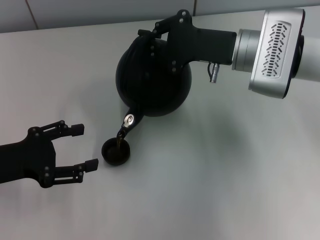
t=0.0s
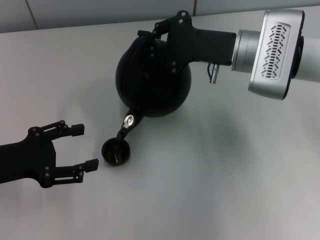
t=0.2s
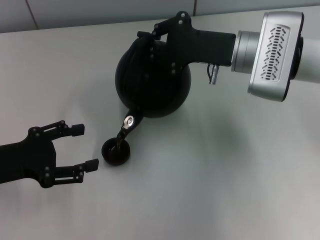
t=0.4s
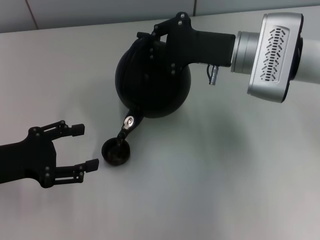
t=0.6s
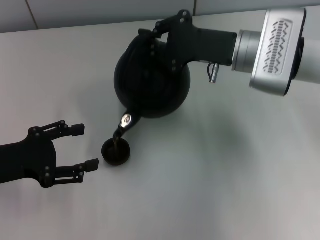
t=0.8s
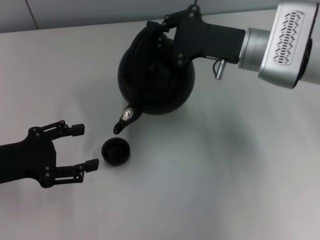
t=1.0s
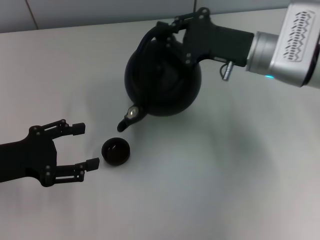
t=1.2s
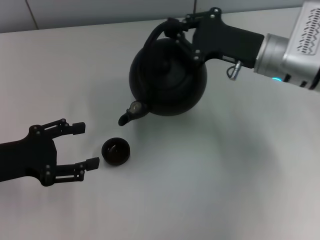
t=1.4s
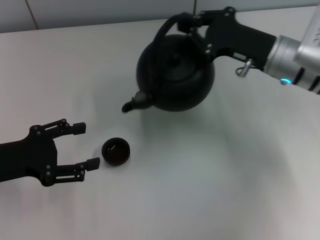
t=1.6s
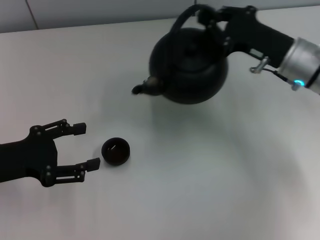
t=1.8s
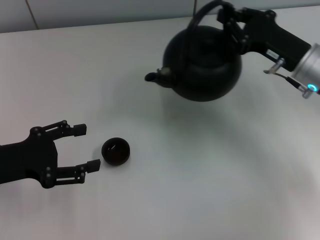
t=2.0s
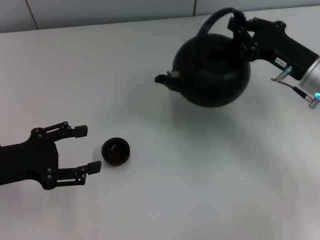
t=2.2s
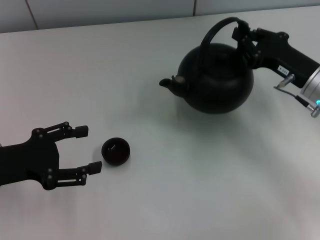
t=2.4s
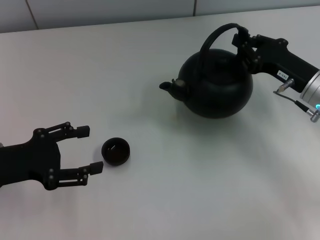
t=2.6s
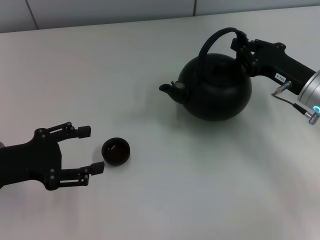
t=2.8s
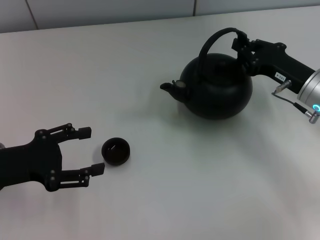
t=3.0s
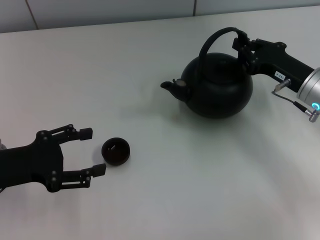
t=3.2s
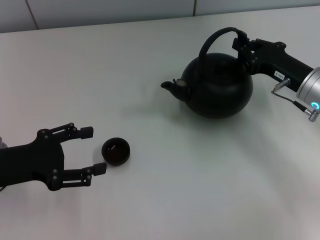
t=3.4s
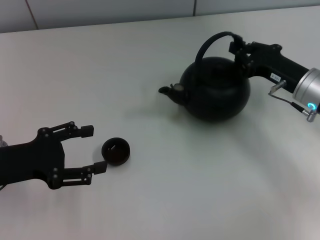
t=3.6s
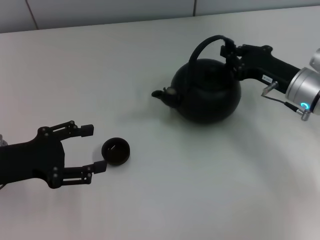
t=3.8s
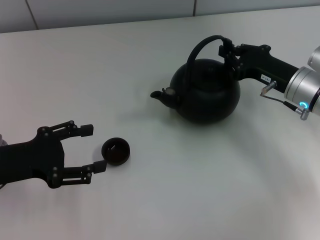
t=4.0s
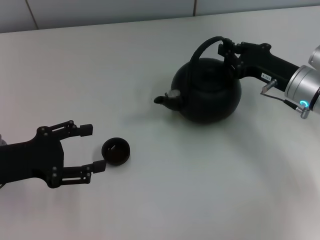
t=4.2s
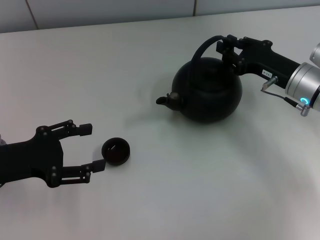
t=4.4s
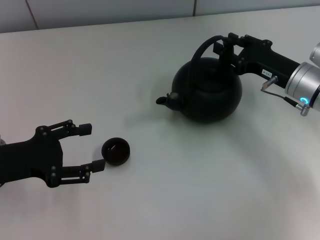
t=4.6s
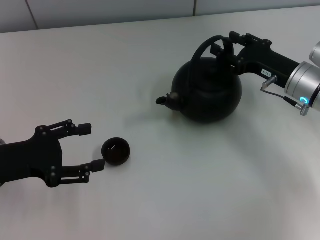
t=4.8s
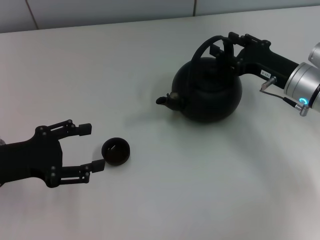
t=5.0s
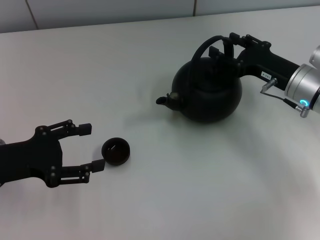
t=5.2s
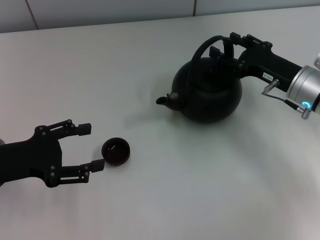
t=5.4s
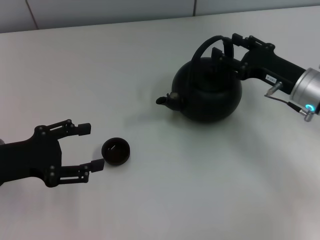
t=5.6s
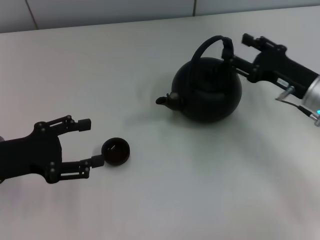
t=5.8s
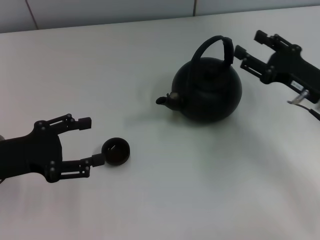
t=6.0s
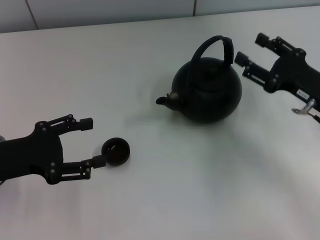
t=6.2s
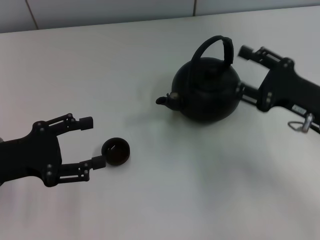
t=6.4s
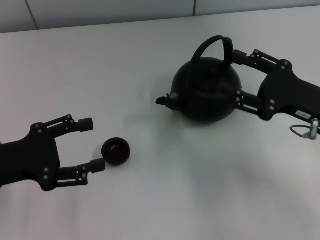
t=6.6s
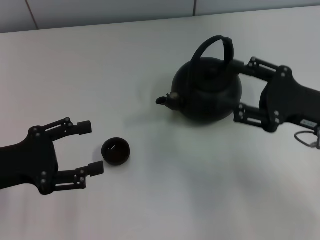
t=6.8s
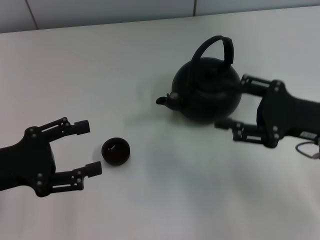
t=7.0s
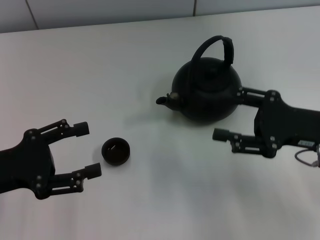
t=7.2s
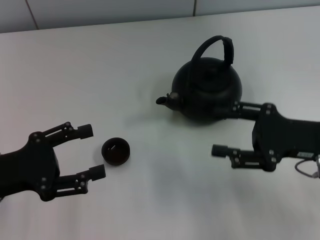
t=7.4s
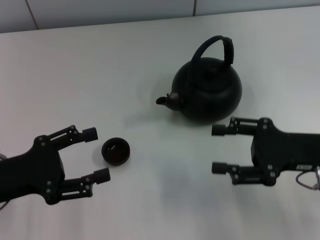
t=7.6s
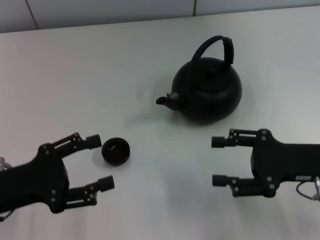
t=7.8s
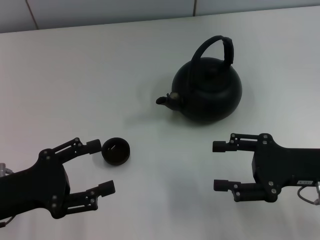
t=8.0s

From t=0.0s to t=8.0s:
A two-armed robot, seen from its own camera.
Task of the whole recording: Grasp the handle of the teapot with one hand and pour tea into the teacup.
Step, from t=1.8s to t=5.6s: Put down the teapot with the right gripper.
From t=0.0s to t=1.6s: The right gripper ends up roughly 5 cm from where it was.
From t=1.6s to t=3.2s: The right gripper shifts approximately 5 cm to the right.
From t=3.2s to t=4.8s: The right gripper opens up.
From t=4.8s to t=6.4s: The right gripper moves backward, about 10 cm.

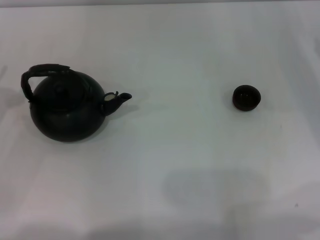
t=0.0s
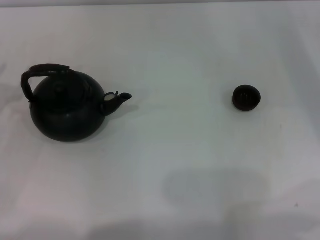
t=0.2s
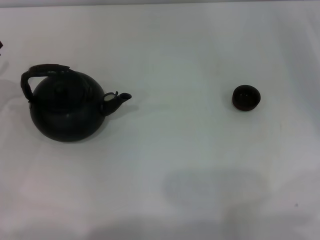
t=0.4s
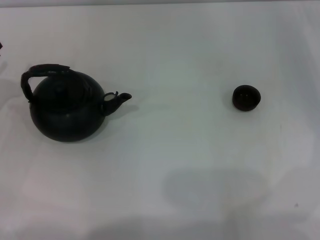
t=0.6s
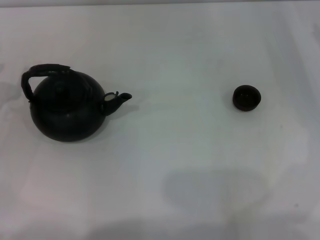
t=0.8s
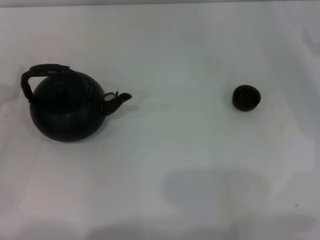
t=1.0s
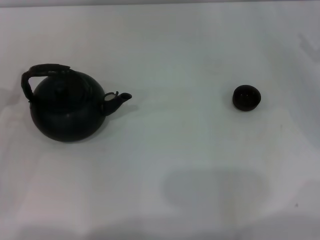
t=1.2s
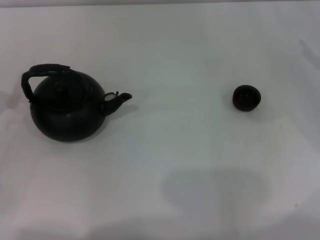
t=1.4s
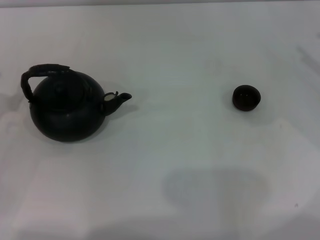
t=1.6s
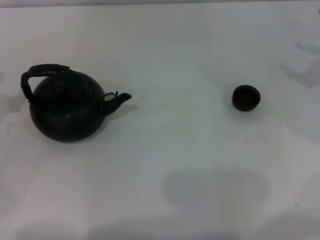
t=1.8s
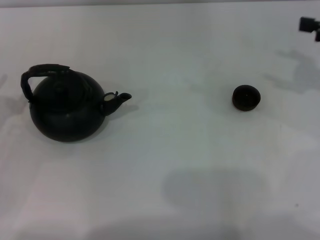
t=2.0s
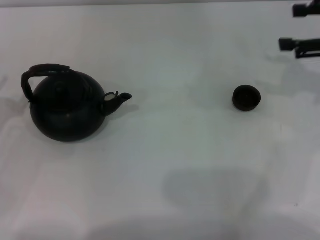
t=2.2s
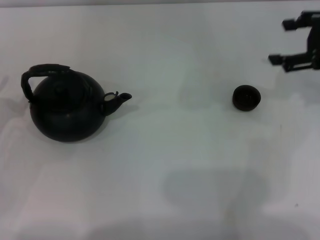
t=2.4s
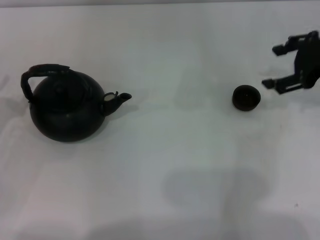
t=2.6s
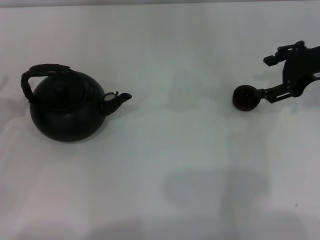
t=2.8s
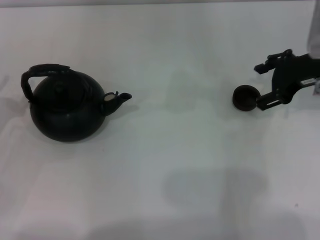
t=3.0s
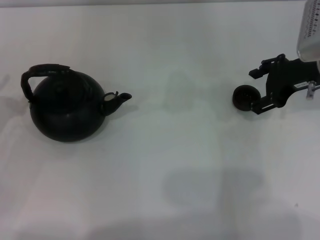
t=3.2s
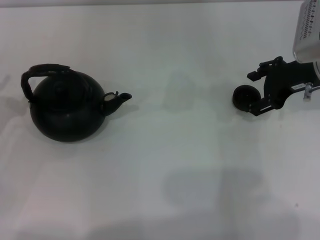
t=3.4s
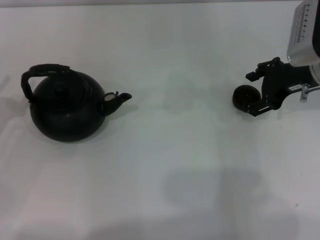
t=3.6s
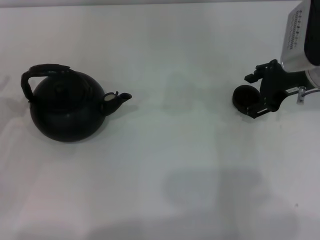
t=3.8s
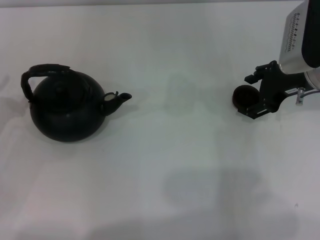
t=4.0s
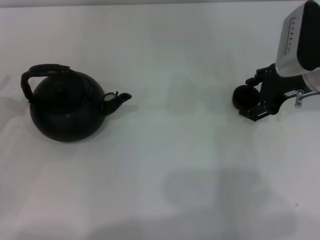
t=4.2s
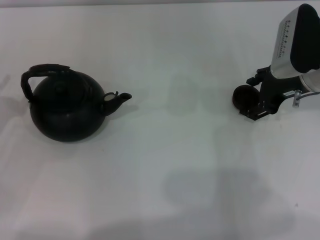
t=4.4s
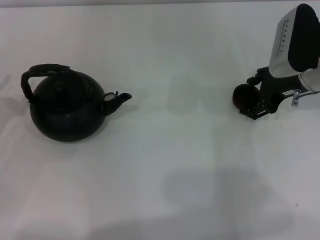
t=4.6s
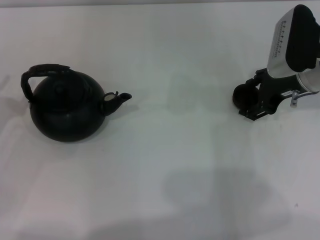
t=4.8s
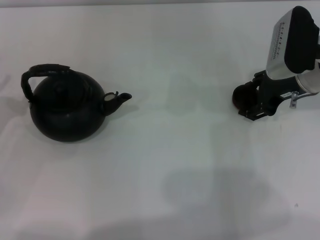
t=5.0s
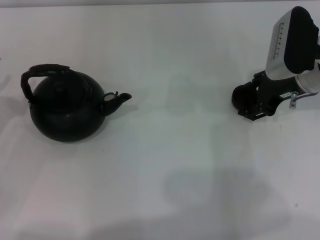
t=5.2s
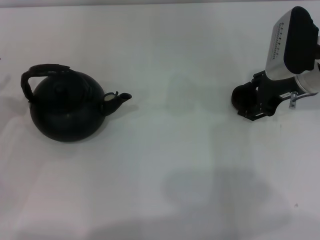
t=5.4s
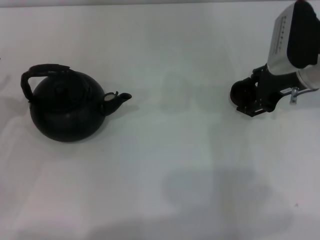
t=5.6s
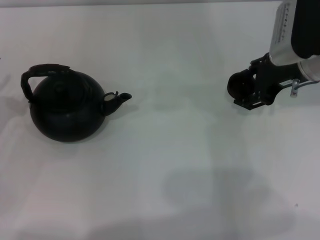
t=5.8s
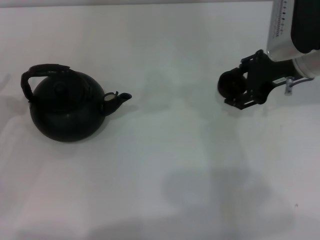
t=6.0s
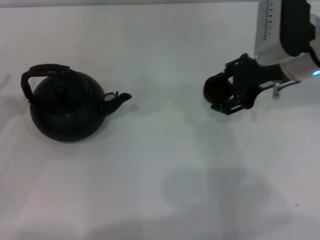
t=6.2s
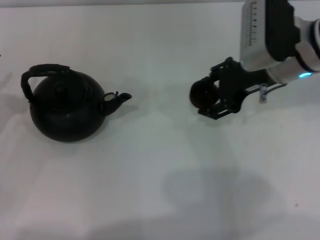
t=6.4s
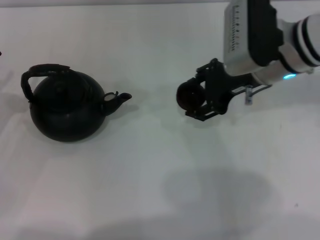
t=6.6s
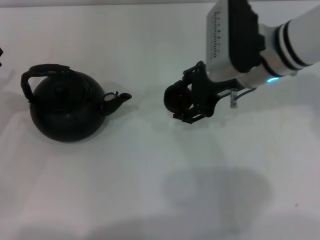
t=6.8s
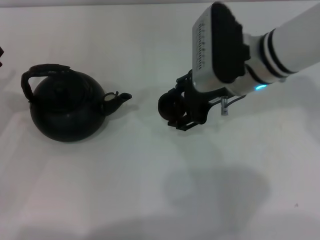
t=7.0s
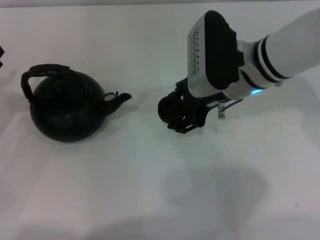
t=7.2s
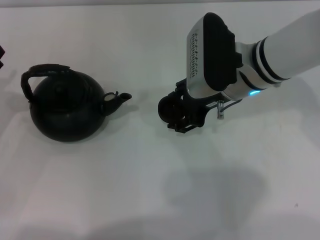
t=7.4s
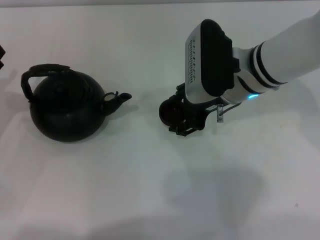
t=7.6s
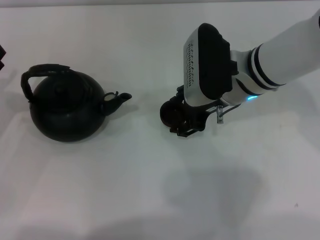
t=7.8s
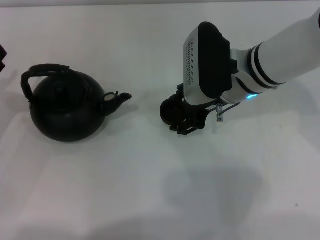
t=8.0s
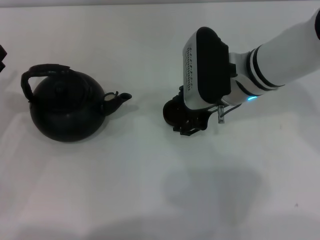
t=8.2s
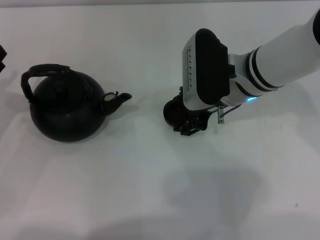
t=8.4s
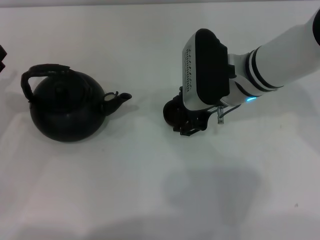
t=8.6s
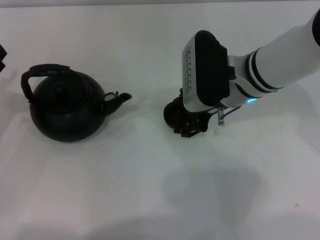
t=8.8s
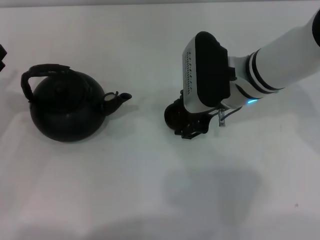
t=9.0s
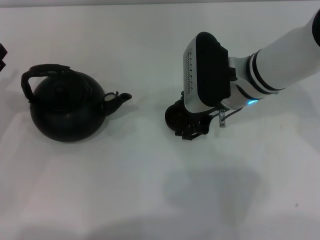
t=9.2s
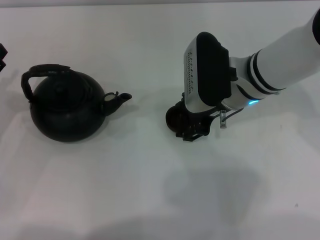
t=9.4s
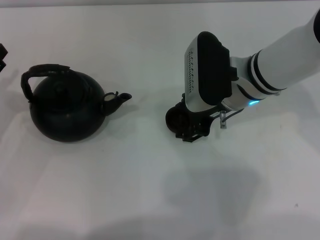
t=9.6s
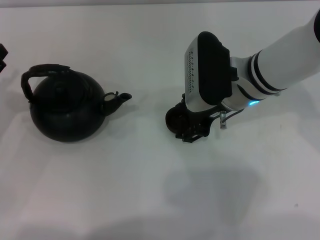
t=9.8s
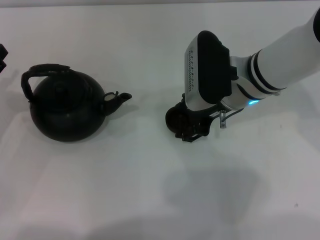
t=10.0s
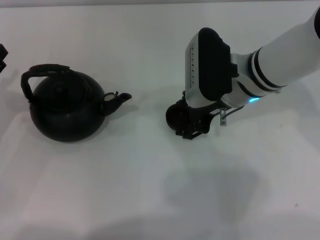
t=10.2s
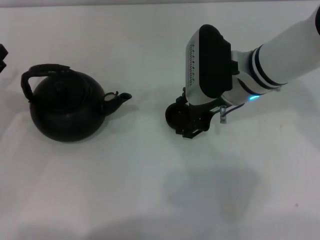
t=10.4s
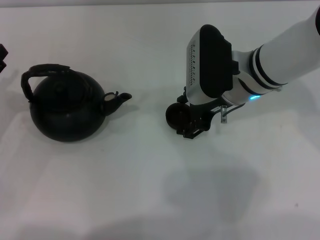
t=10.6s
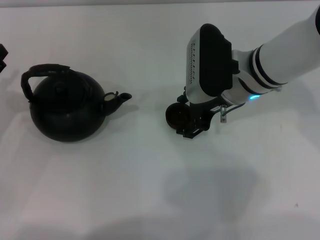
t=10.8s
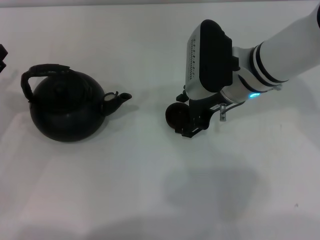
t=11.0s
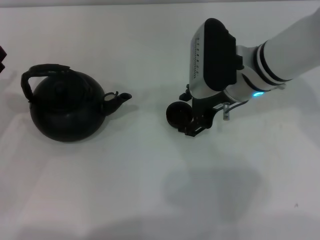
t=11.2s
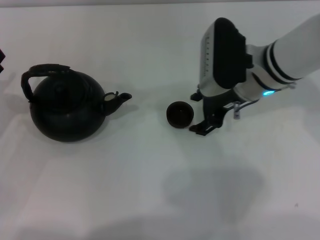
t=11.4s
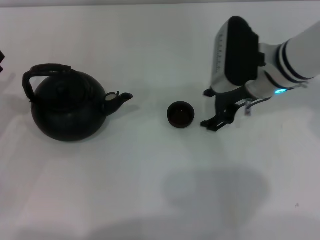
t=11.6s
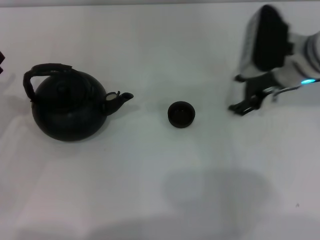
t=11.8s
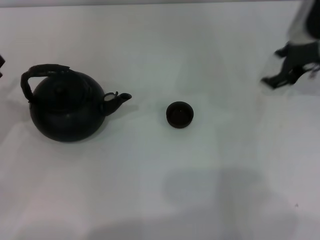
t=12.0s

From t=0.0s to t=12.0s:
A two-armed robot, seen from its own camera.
Task of the whole recording: Grasp the handle of the teapot with one hand and pour tea into the teacup.
Step, from t=0.0s to t=5.6s: Pick up the teacup with the right gripper.
Step, from t=6.0s to t=11.4s: Place the teacup in the center of view with the right gripper.
From t=1.6s to t=3.0s: The right gripper shifts some 15 cm to the left, and opens.
From t=3.0s to t=4.4s: There are only small adjustments of the grippers.
From t=4.4s to t=6.0s: The right gripper closes up.
From t=6.0s to t=7.6s: The right gripper is displaced to the left by about 10 cm.
From t=7.6s to t=10.4s: Both grippers stay about where they are.
From t=10.4s to t=12.0s: The right gripper is displaced to the right by approximately 15 cm, and opens.

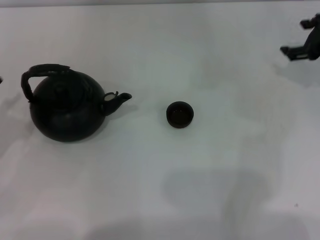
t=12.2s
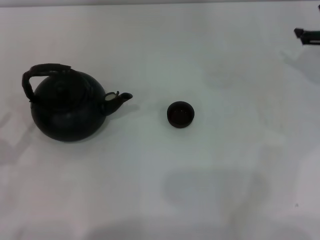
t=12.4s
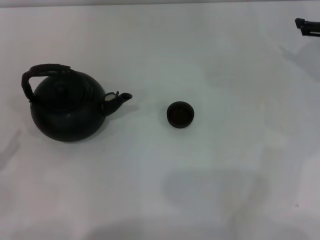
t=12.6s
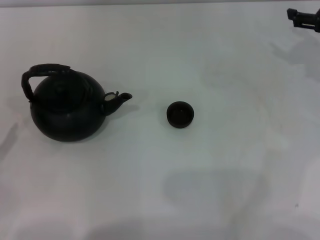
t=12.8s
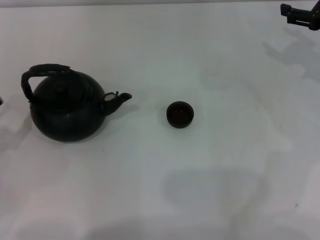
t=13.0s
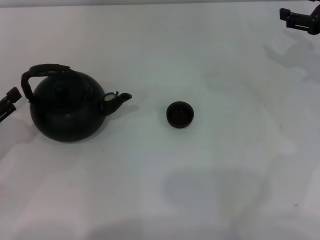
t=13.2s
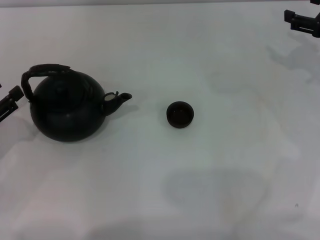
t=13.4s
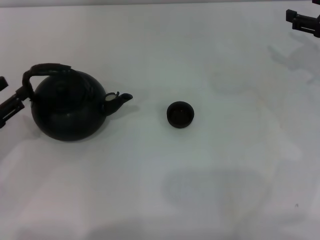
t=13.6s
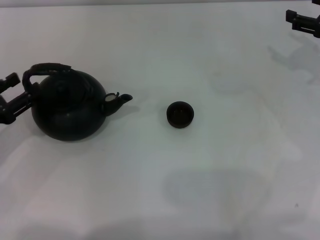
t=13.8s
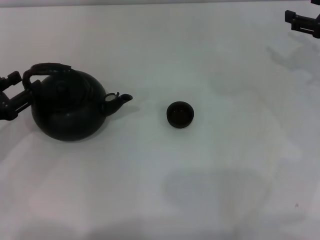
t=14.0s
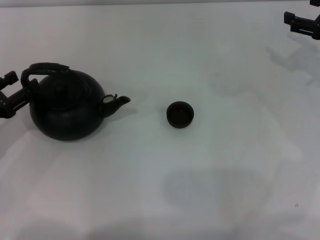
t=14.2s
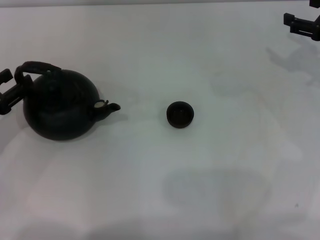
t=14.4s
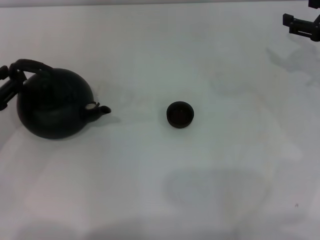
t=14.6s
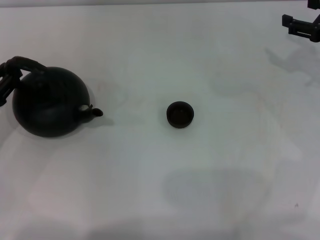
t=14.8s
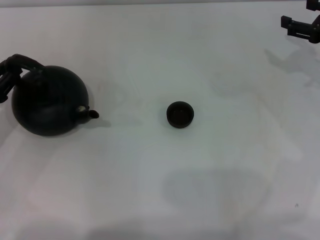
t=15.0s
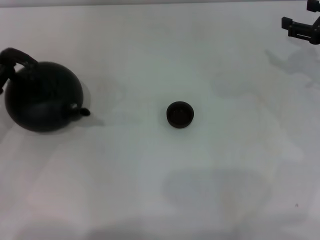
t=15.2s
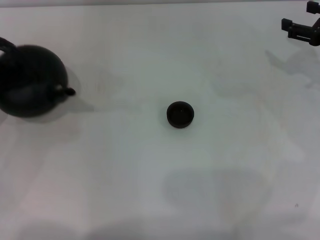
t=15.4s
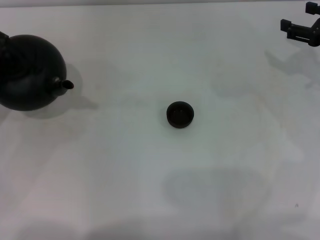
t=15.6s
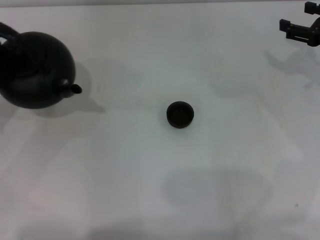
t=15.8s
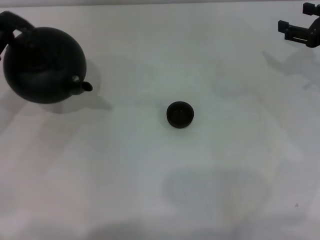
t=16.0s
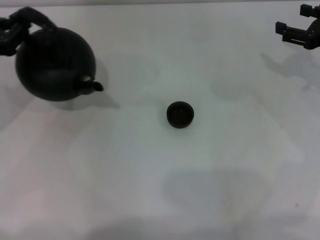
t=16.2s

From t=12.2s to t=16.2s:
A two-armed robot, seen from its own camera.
Task of the whole recording: Grasp the handle of the teapot with one hand and pour tea into the teacup.
From t=13.6s to t=14.8s: The left gripper closes its fingers.
From t=14.8s to t=16.2s: The left gripper travels forward and upward by roughly 10 cm.
